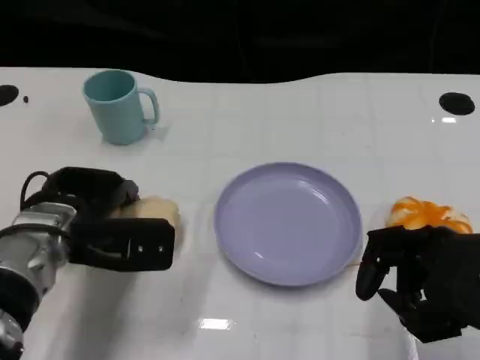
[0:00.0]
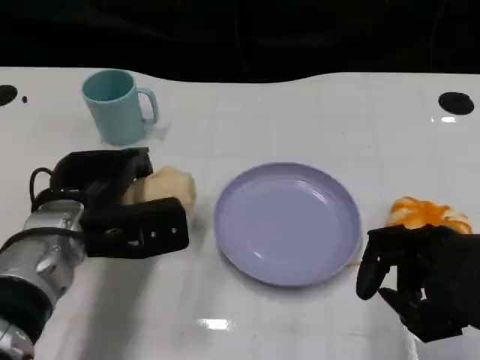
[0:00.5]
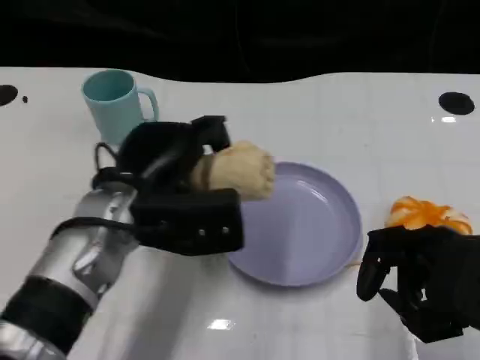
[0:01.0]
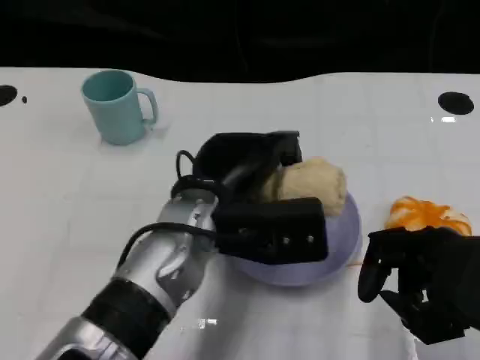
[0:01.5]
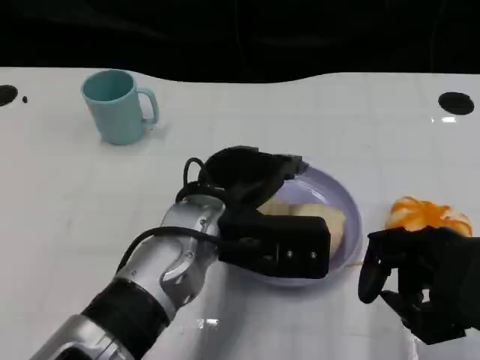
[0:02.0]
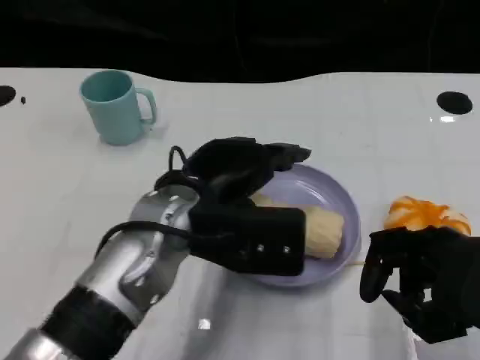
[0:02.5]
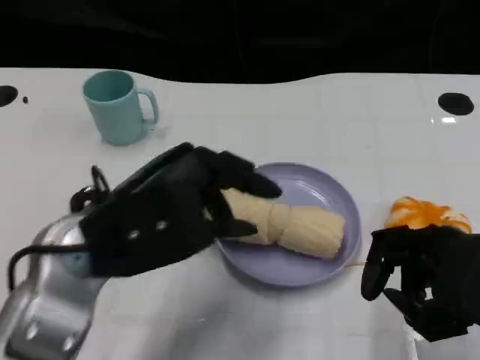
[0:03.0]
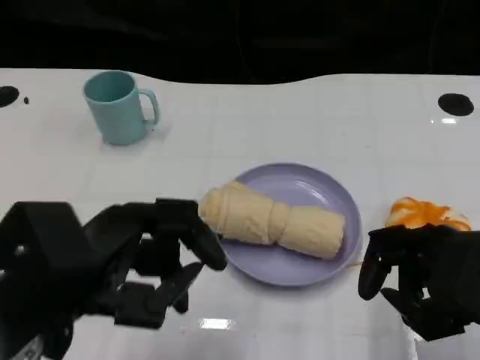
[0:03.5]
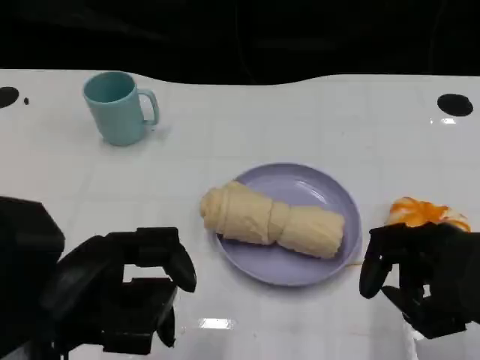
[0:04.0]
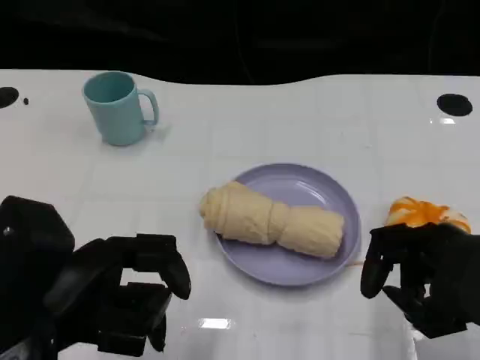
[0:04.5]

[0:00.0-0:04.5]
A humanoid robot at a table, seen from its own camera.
Task of the whole recording: Grasp the towel on the left side of the plate with the left hand and place it into the plate.
0:00.0 to 0:02.0: The left hand goes about 15 cm to the right.
0:02.0 to 0:04.5: The left hand shifts some 20 cm to the left and backward.
